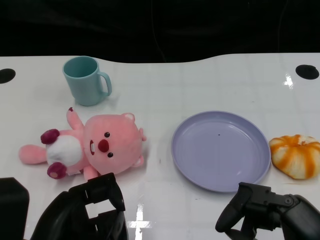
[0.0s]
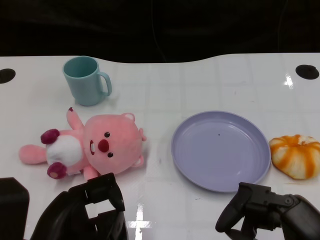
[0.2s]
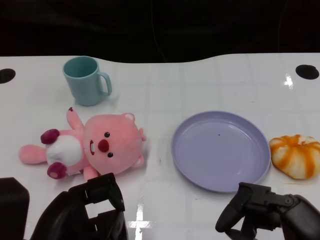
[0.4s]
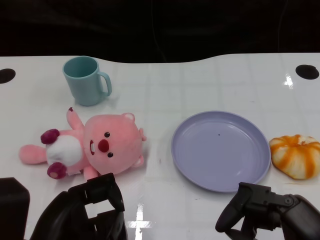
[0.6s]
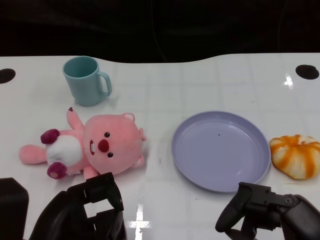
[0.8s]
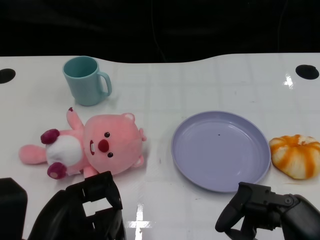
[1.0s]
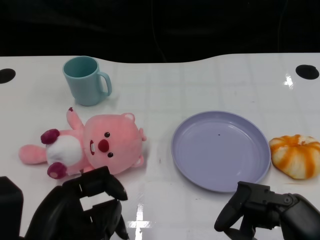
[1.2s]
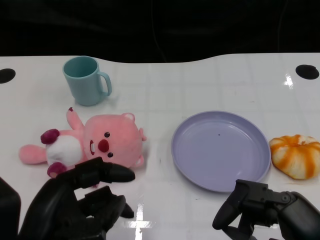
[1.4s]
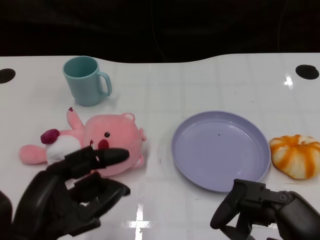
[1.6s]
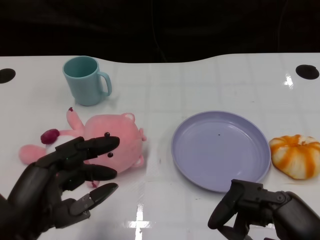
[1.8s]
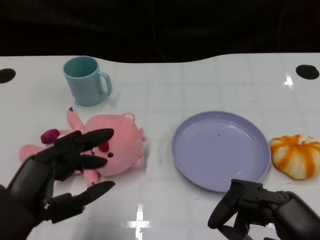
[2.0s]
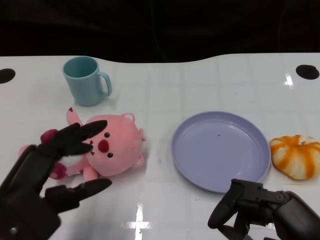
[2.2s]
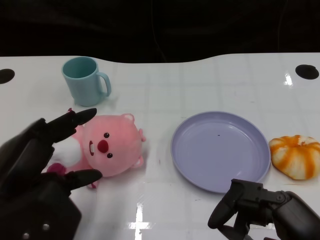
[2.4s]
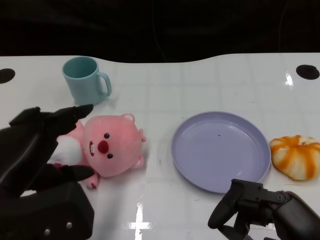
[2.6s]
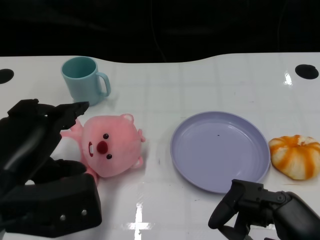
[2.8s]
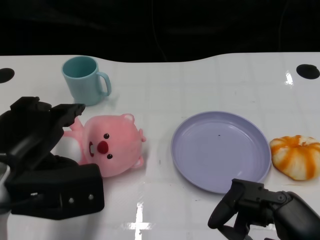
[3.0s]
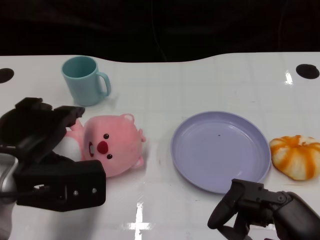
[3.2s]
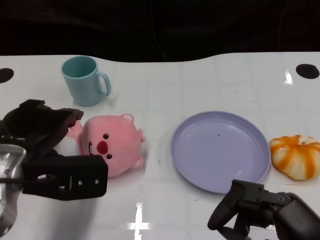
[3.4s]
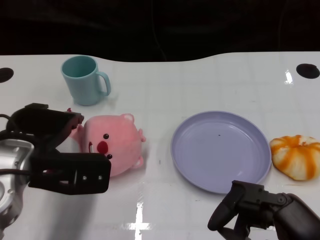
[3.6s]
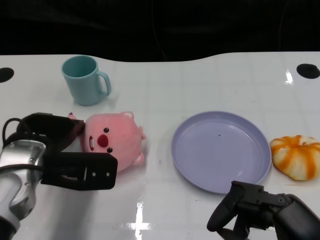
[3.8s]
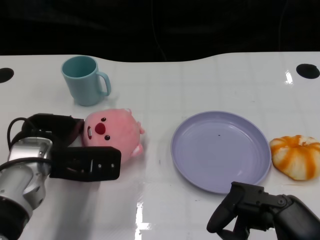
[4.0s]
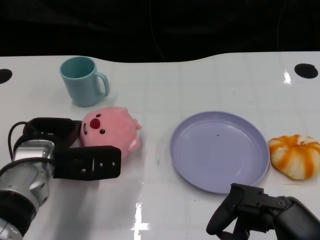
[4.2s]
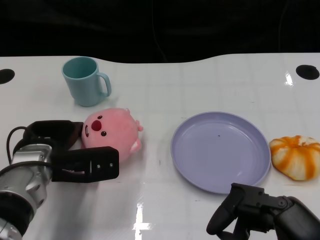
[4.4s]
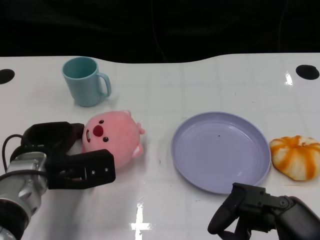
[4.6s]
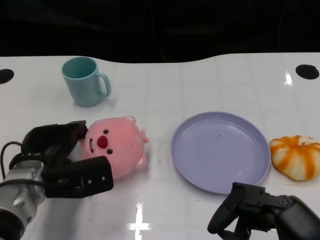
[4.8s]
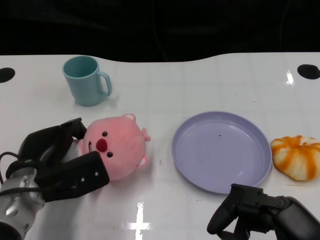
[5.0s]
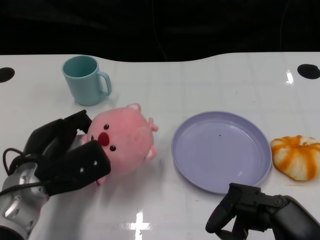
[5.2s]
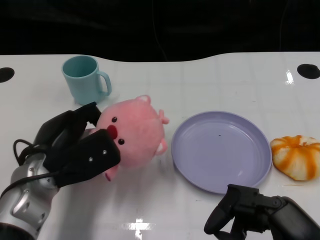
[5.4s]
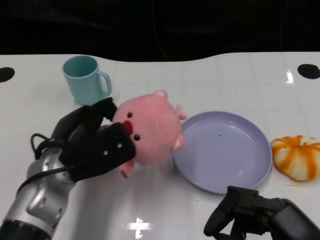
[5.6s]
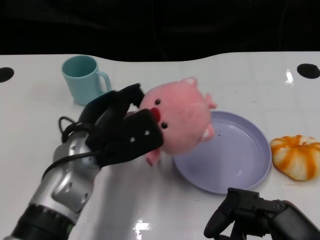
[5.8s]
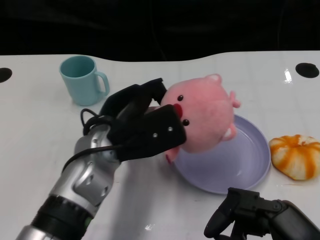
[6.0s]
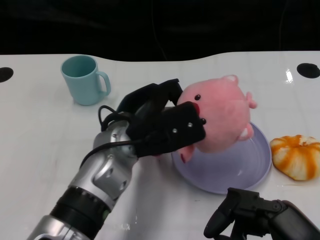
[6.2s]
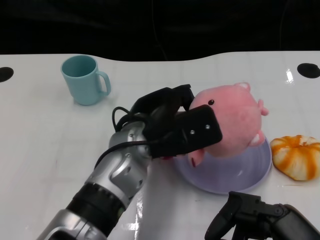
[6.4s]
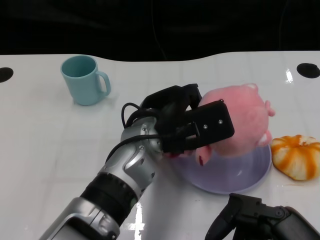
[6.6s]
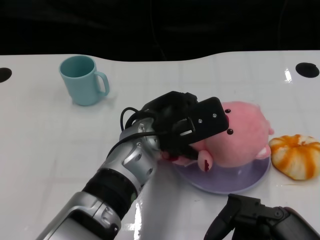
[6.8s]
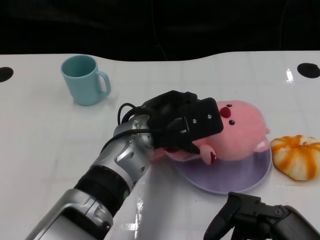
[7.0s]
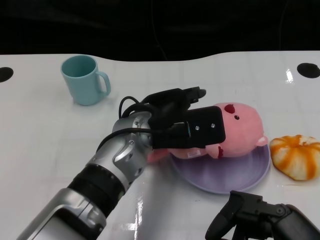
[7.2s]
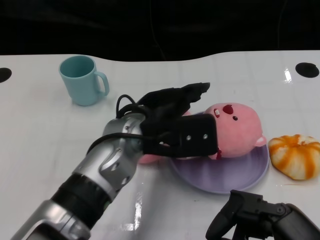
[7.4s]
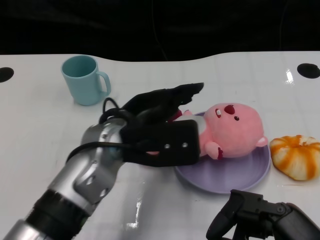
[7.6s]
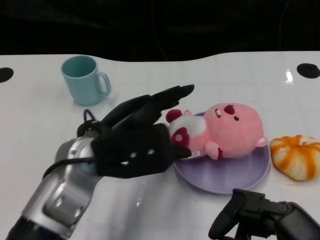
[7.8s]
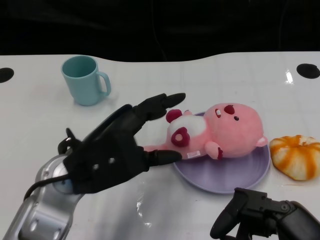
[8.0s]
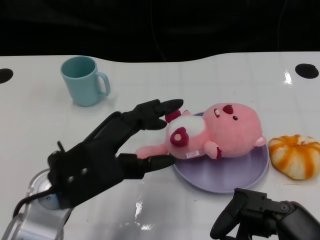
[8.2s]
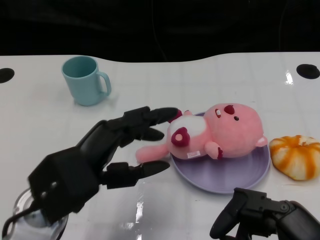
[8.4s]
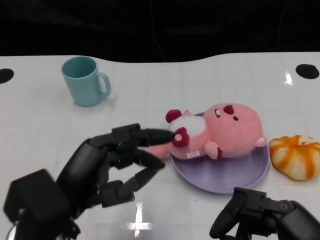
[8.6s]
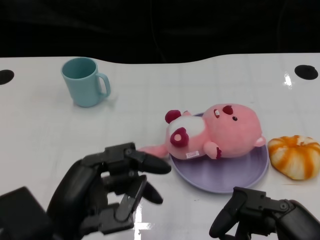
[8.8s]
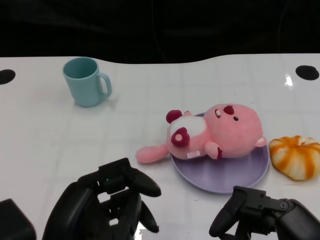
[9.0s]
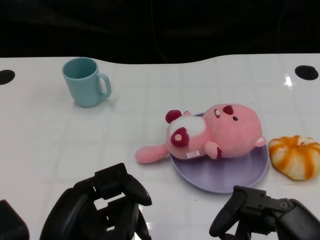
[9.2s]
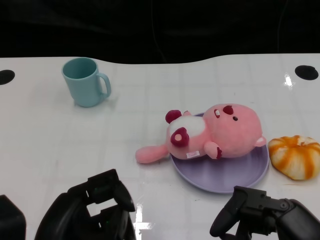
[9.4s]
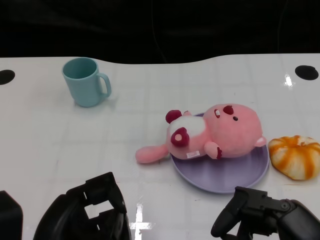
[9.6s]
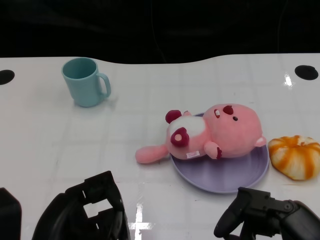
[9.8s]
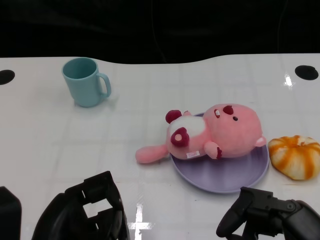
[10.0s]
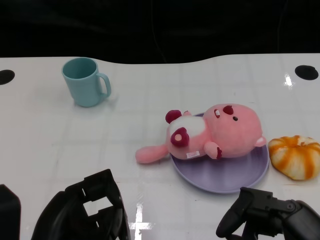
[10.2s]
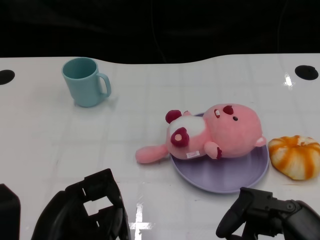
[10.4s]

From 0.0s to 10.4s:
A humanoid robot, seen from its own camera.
Task of the whole recording: Pick up the doll on one side of the plate and place it into the plate.
Step, from 1.0s to 5.0s: Grasp the pink doll with the left gripper.
Step, from 5.2s to 7.2s: Place the pink doll into the plate with the left gripper.
From 1.4s to 3.0s: The left hand goes some 5 cm forward.
From 3.0s to 4.4s: The left hand goes about 15 cm forward and downward.
From 4.4s to 6.0s: The left hand heads to the right and upward, covering some 10 cm.
From 7.4s to 9.0s: The left hand travels backward and to the left by approximately 20 cm.
From 9.0s to 10.4s: There are only small adjustments of the hands.

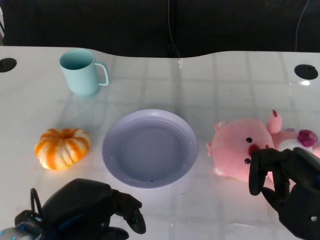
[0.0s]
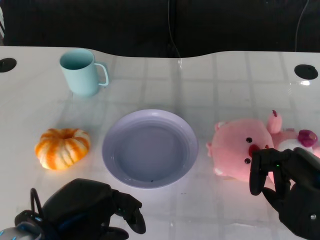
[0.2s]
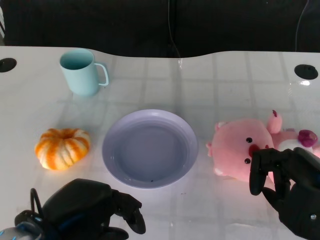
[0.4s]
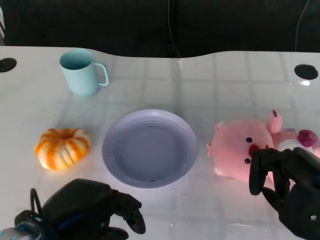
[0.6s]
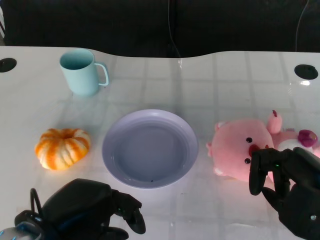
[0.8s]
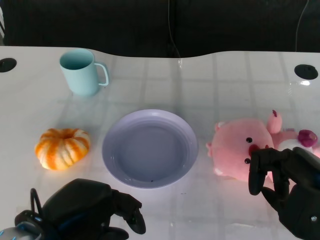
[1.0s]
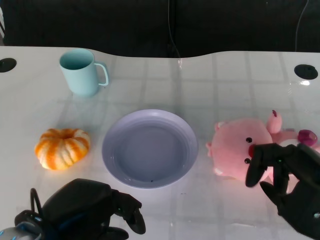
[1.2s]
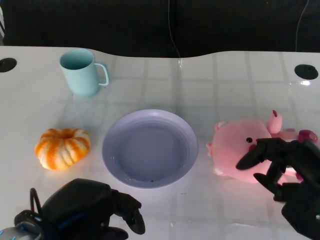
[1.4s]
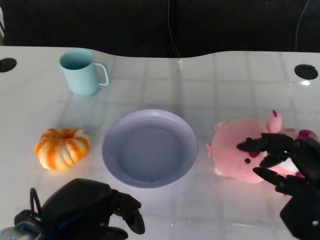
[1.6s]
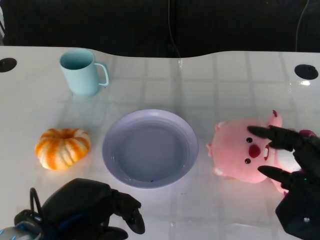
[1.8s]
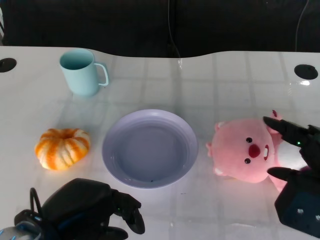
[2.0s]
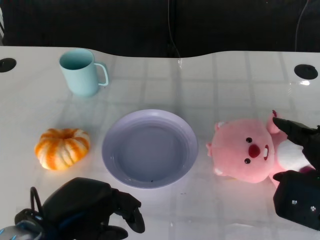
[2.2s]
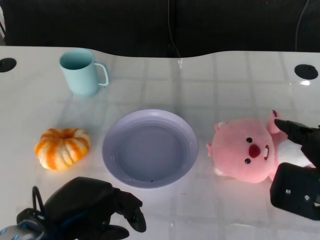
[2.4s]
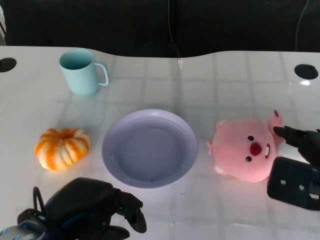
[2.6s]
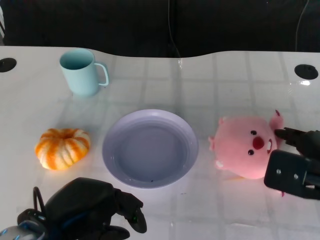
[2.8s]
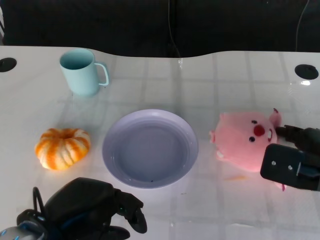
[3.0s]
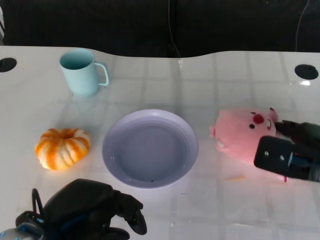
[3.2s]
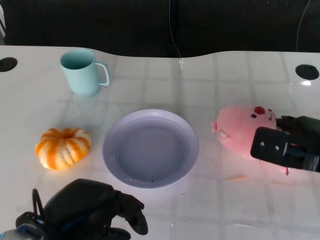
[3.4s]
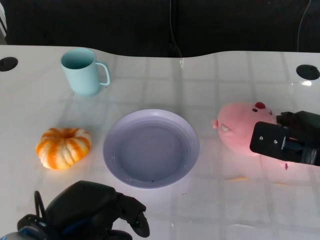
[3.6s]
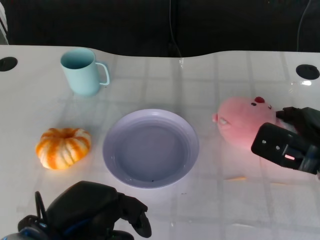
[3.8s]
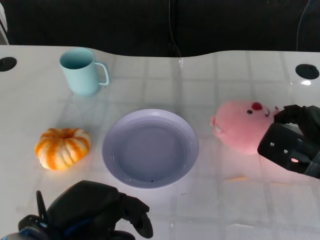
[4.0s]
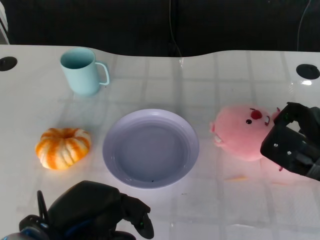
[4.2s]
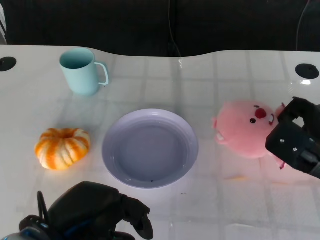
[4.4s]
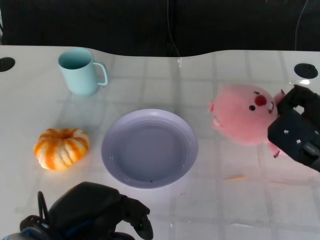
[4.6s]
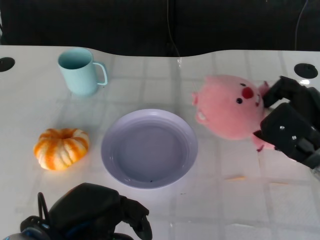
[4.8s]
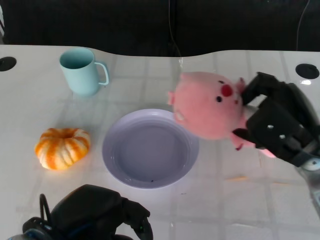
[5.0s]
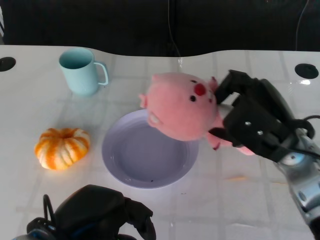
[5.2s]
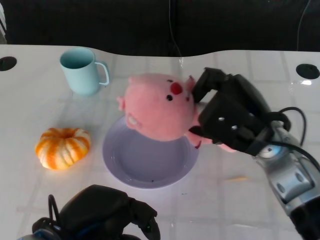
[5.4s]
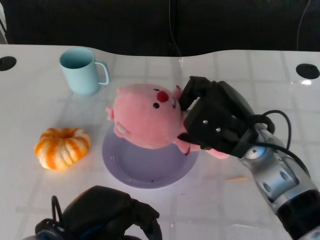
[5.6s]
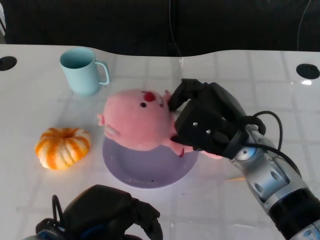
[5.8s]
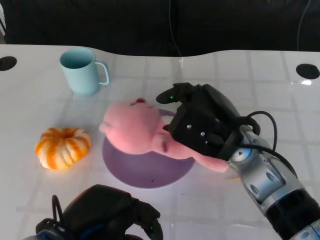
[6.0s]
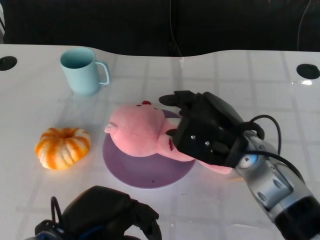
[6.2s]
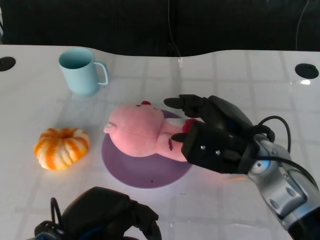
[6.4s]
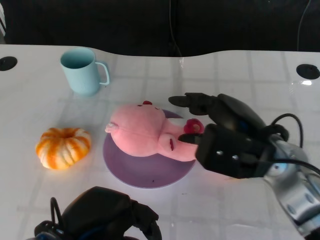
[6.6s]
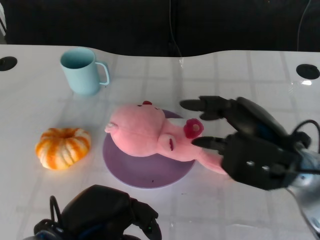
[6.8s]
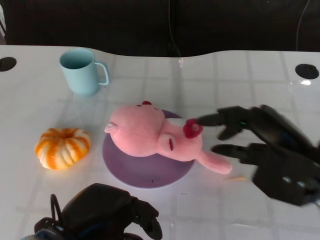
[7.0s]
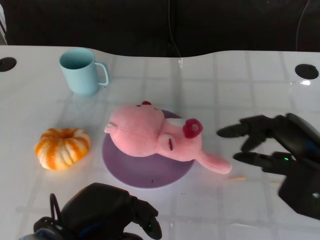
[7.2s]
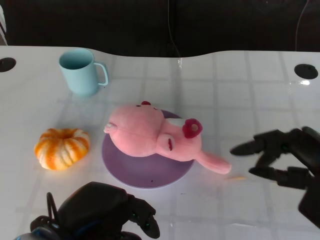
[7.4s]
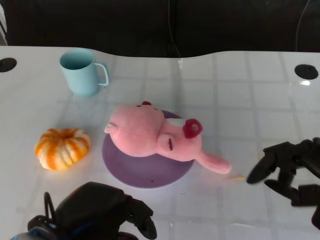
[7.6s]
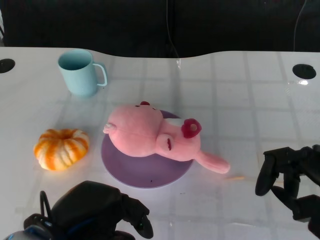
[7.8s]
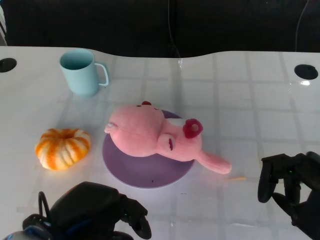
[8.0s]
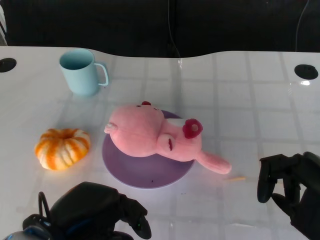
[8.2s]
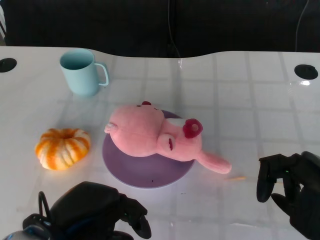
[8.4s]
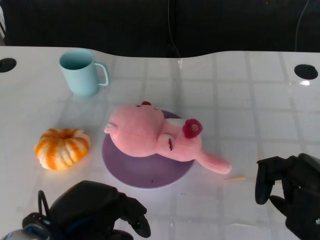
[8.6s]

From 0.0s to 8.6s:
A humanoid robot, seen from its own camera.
Task of the whole recording: Pick up the doll on the other side of the plate and place it into the plate.
Step, from 1.2s to 5.2s: Grasp the pink doll with the right gripper.
Step, from 5.4s to 6.8s: Place the pink doll into the plate with the right gripper.
From 2.8s to 4.4s: The right hand shifts by approximately 5 cm.
From 4.4s to 5.8s: The right hand is displaced to the left by about 15 cm.
From 5.8s to 7.2s: The right hand shifts approximately 15 cm to the right and backward.
From 7.2s to 8.6s: The hands stay close to where they were, moving slightly.
